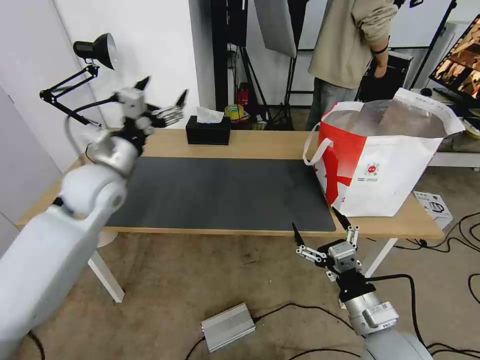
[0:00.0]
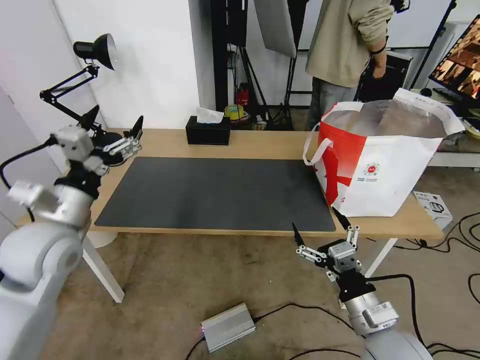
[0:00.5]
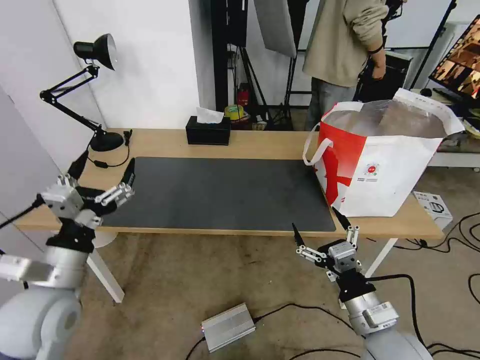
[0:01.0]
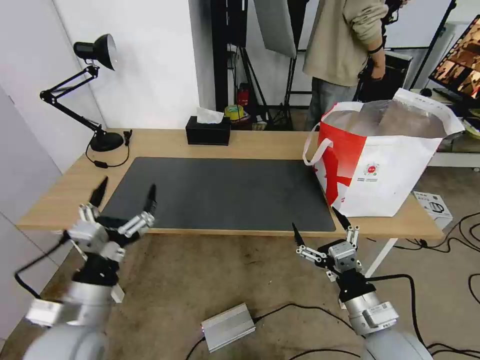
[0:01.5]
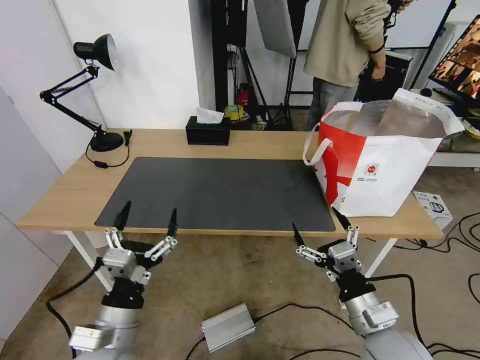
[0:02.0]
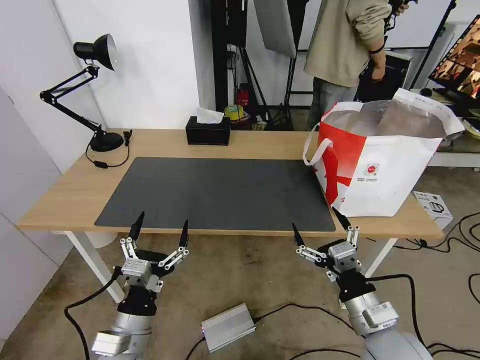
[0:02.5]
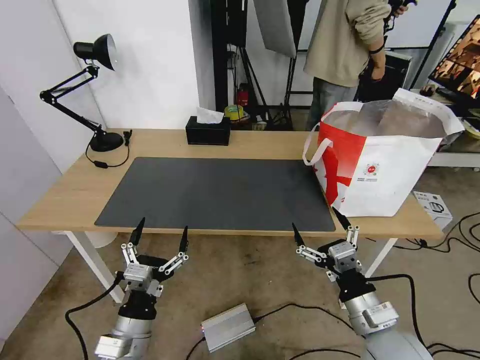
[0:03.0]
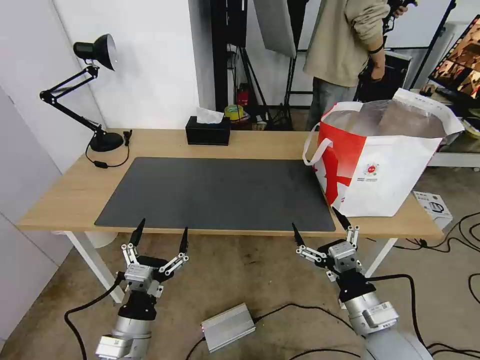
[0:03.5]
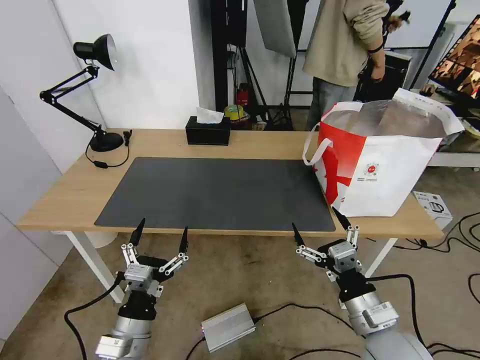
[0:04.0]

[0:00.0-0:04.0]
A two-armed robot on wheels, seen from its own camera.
Task of the whole recording: Pick up the trash from the table and place it into the takeout bag.
0:00.0 to 0:02.0: The left gripper is displaced backward and downward by about 30 cm.
0:02.0 to 0:04.0: The left gripper ends up some 5 cm from where it was.

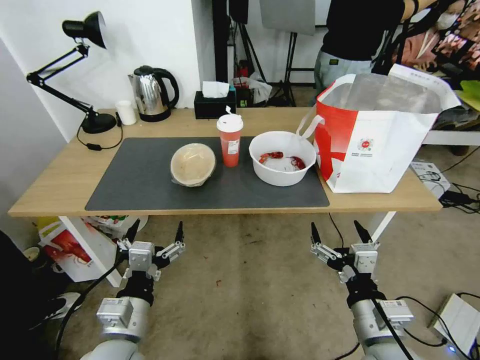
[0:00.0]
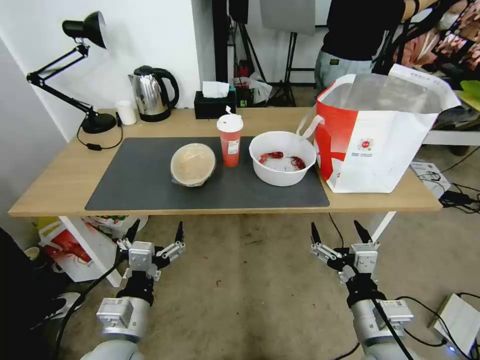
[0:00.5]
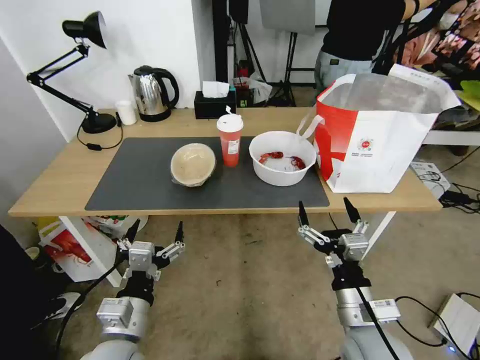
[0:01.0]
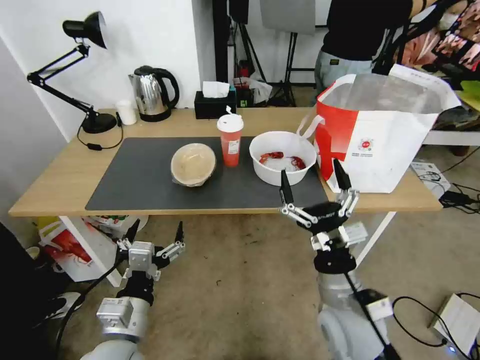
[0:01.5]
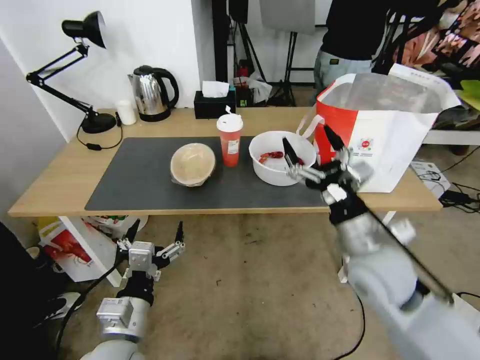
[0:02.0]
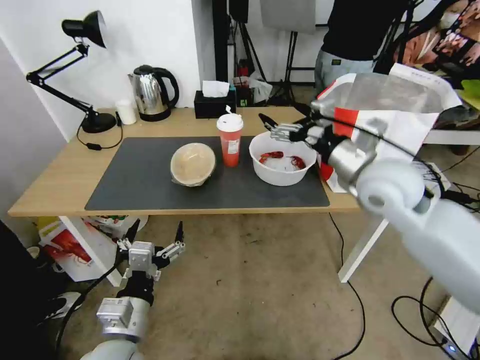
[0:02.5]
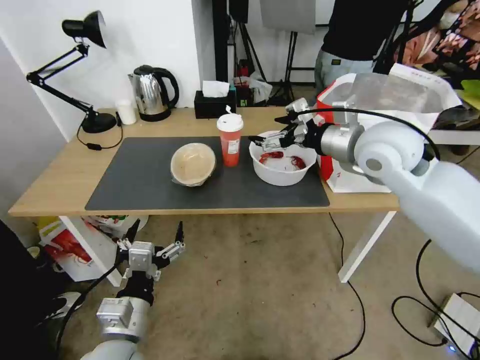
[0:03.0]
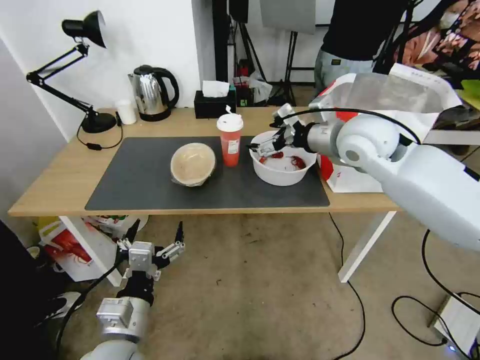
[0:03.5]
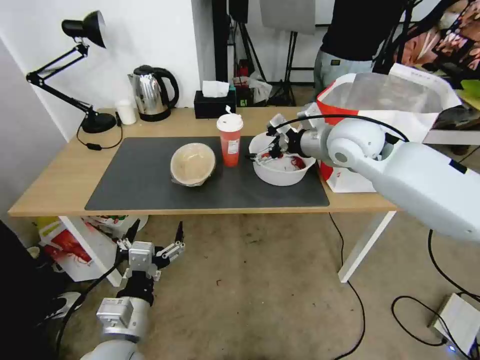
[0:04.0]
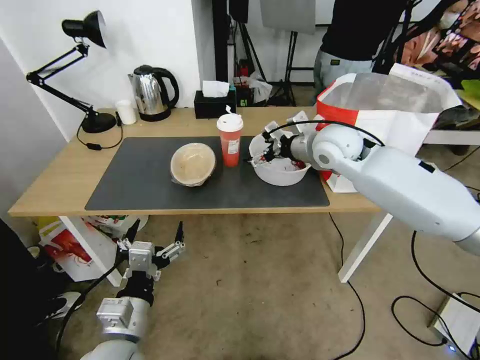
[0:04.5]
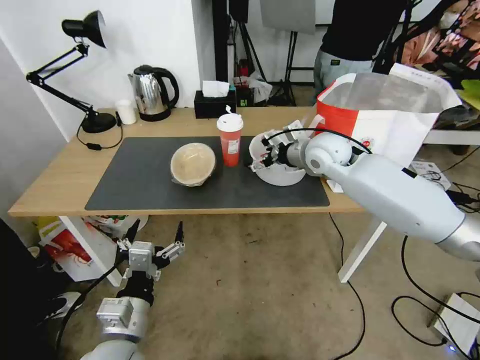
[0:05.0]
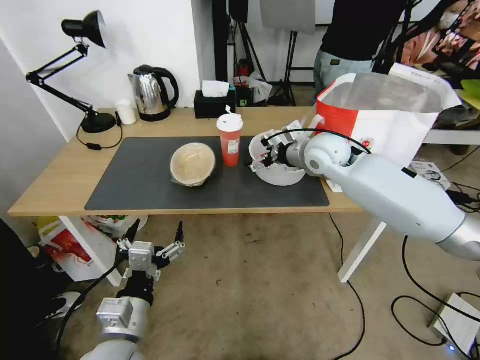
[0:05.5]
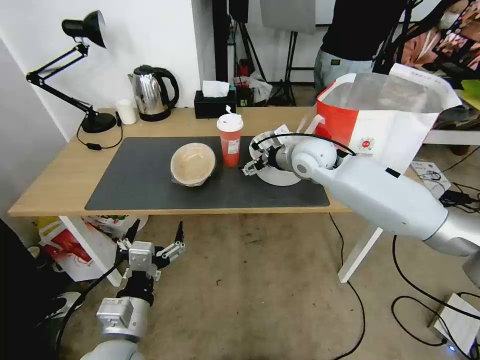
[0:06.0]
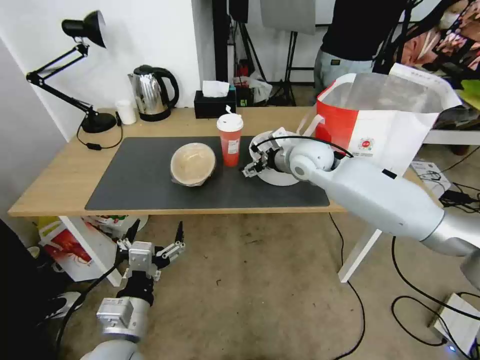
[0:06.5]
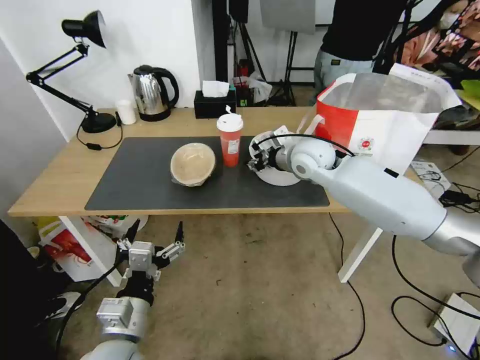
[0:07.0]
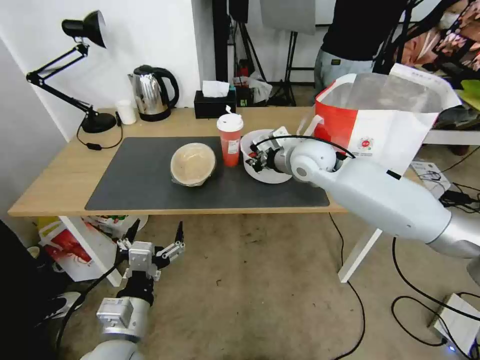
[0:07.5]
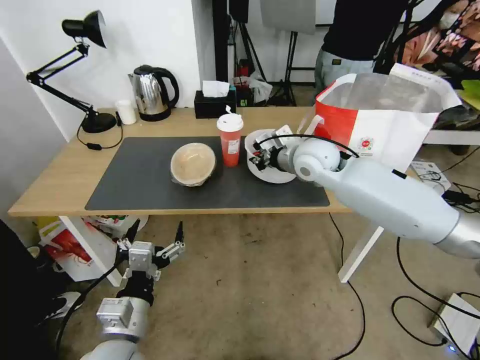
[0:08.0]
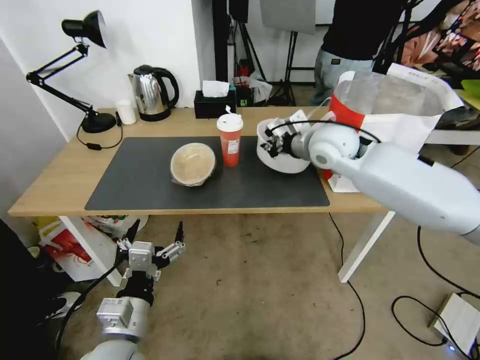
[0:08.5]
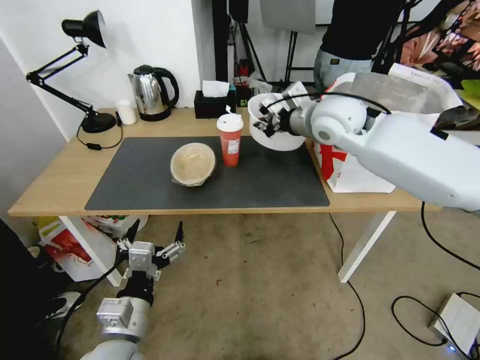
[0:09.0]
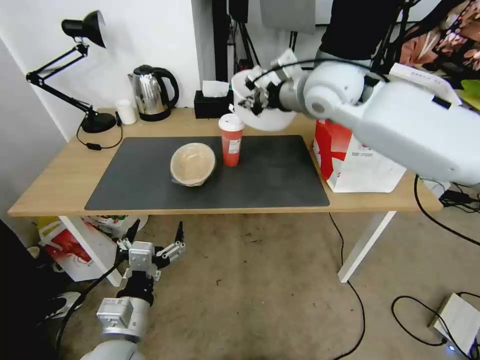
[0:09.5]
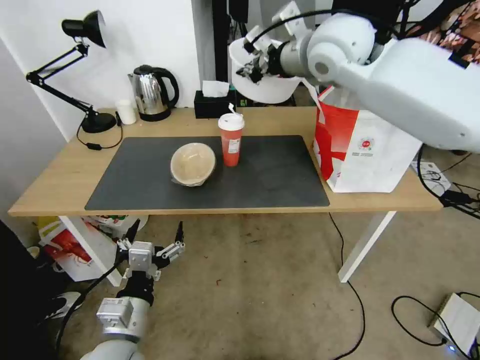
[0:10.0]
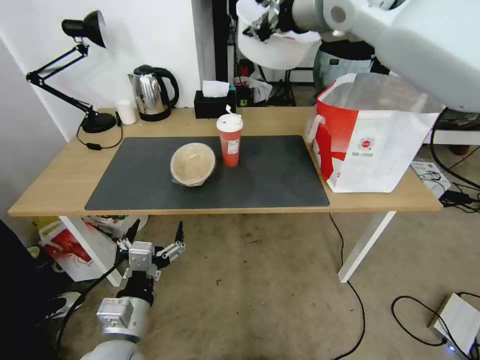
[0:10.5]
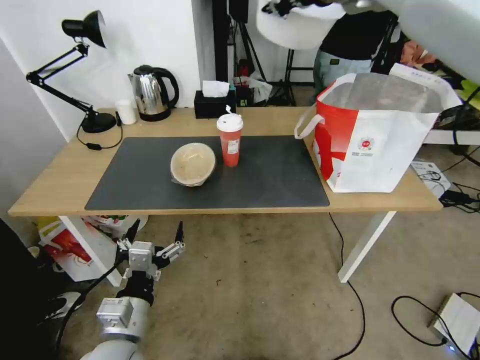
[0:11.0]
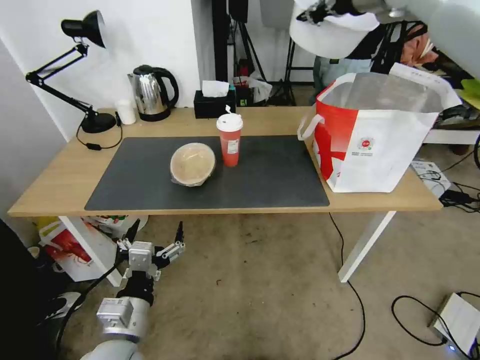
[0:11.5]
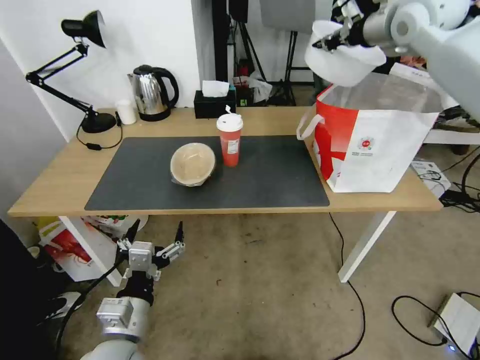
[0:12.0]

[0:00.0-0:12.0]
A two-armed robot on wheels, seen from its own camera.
Task of the whole recording: Pick up the trash from the table and place it into the takeout bag.
0:02.0 to 0:04.0: The right gripper shifts approximately 25 cm forward and upward.
0:04.0 to 0:06.0: The right gripper travels downward by approximately 10 cm.
0:06.0 to 0:08.0: The right gripper closes up.
0:08.0 to 0:10.0: The right gripper moves upward, roughly 20 cm.
0:10.0 to 0:12.0: The right gripper travels to the right by approximately 15 cm.

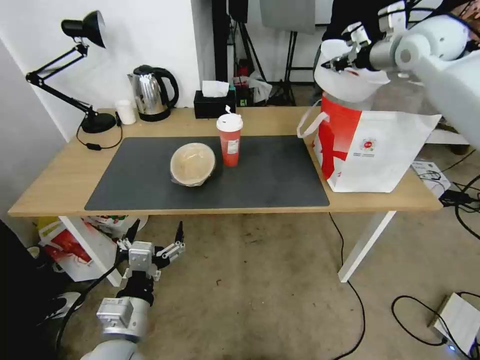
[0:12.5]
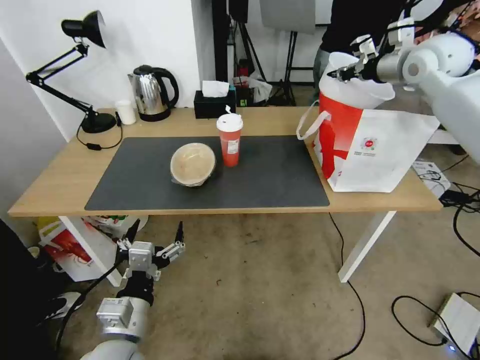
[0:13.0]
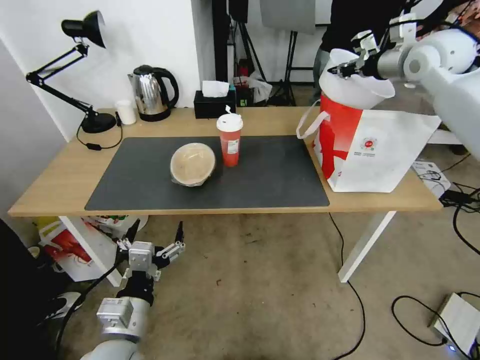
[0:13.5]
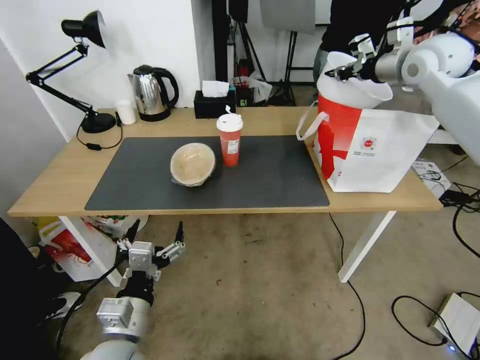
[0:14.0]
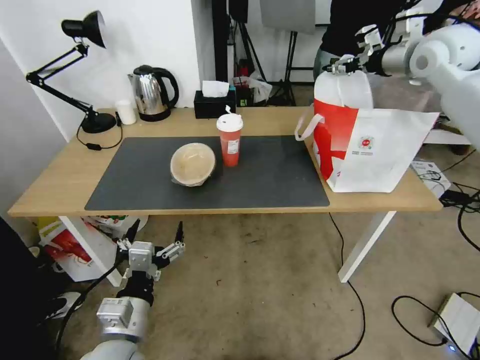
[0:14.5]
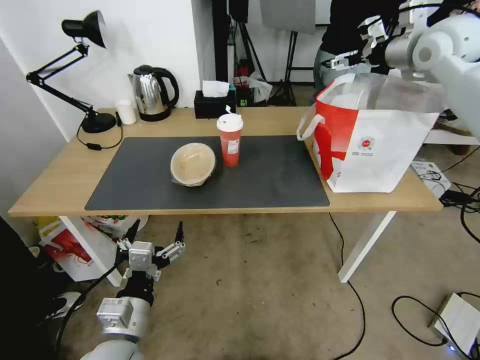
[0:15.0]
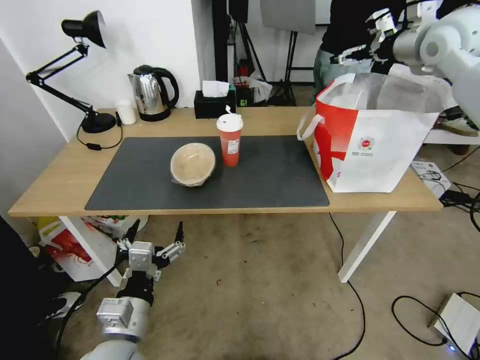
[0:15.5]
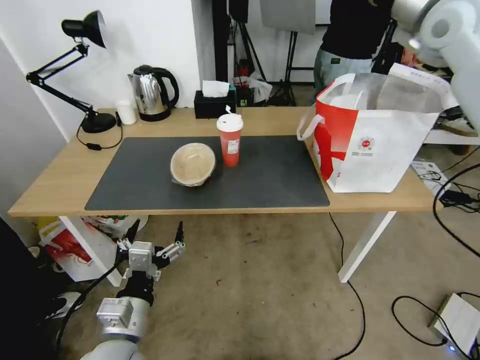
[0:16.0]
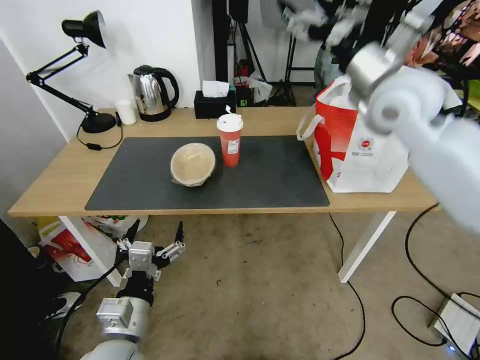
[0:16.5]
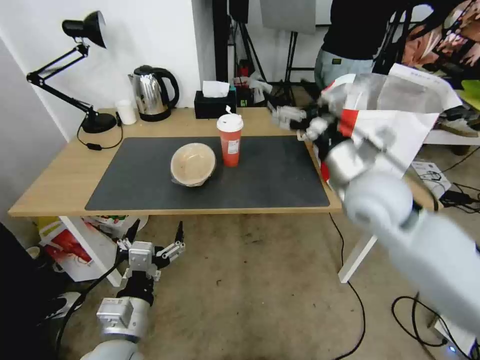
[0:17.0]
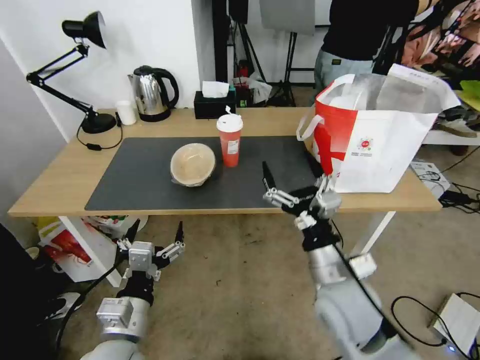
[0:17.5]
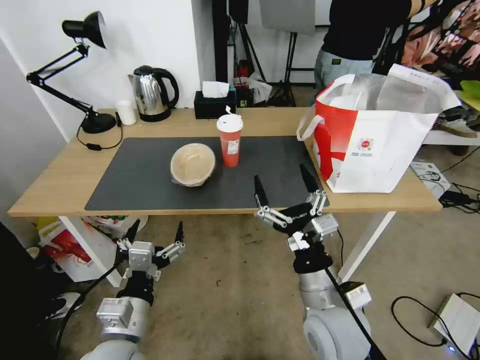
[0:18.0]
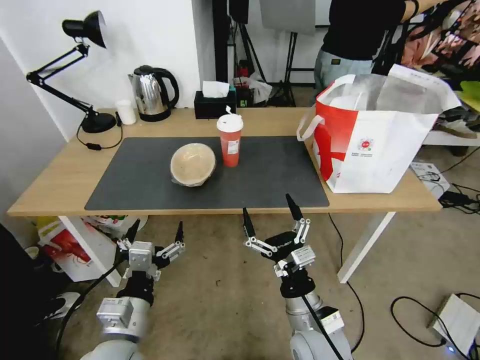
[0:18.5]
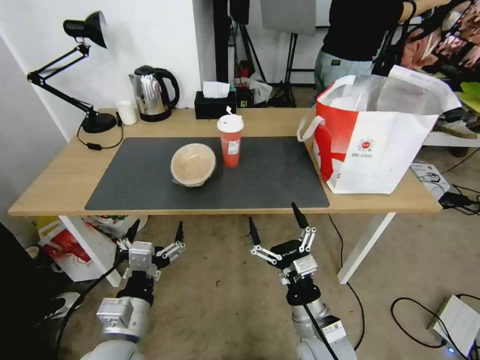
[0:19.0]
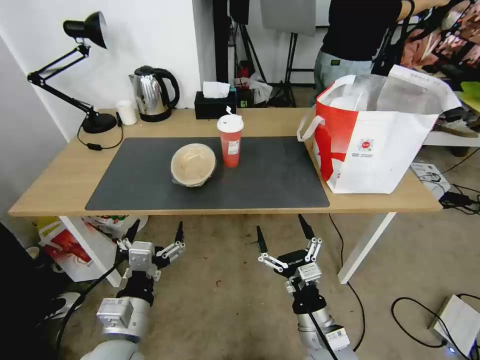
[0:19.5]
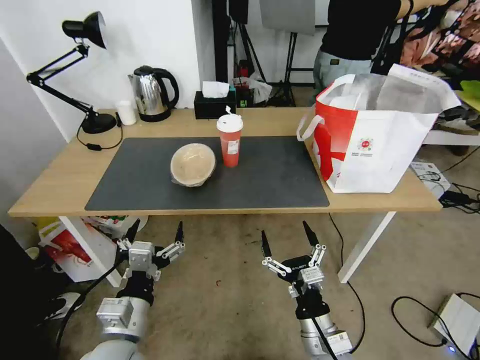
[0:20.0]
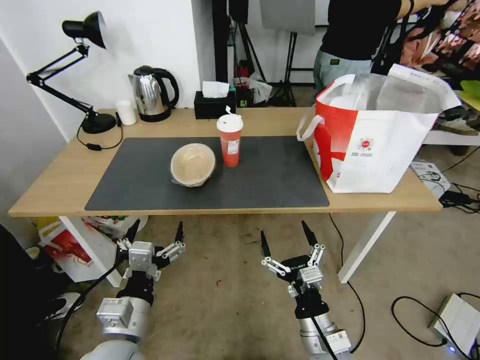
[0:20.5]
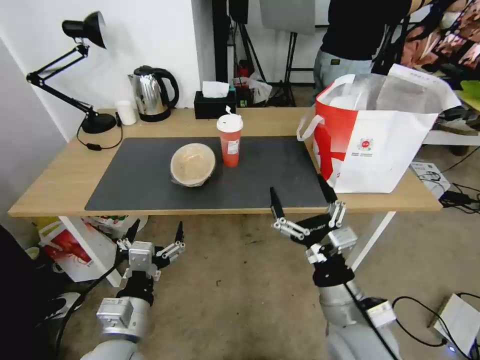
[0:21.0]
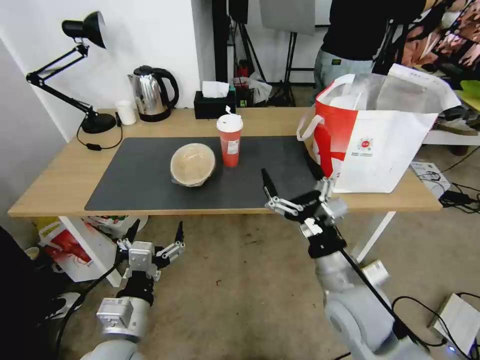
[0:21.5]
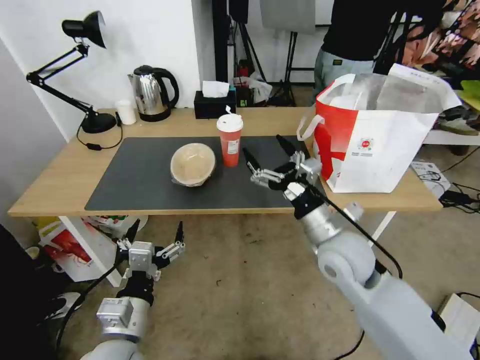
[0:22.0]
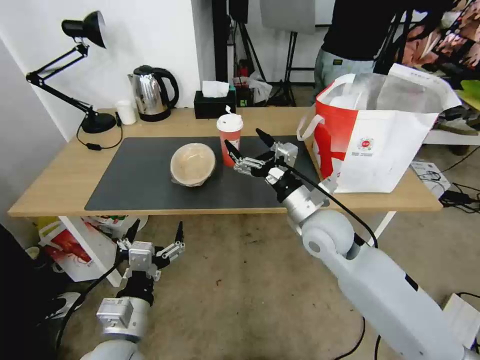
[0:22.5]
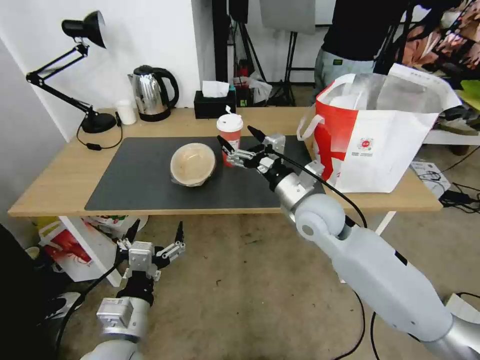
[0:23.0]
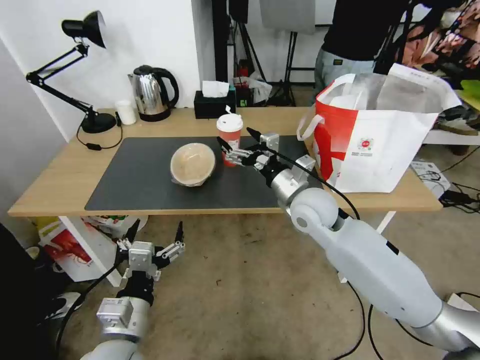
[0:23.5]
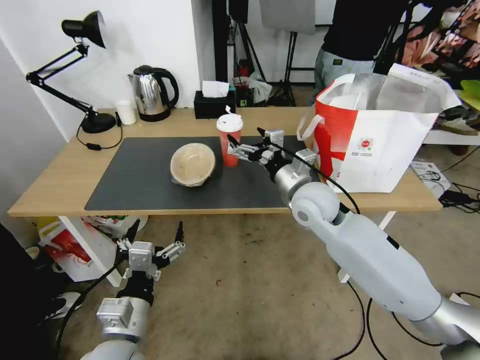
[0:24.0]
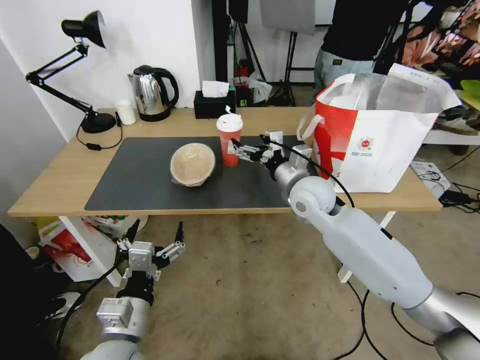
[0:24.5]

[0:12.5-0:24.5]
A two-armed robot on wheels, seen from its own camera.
Task of the whole recording: Pick up the trash from the table and place it into the takeout bag.
0:12.5 to 0:14.5: The right gripper opens up.
0:14.5 to 0:16.5: The right gripper goes about 15 cm to the left and backward, and opens its fingers.
0:16.5 to 0:18.5: The right gripper heads downward and backward, covering some 40 cm.
0:18.5 to 0:20.5: The right gripper moves roughly 5 cm.
0:20.5 to 0:22.5: The right gripper heads forward and upward, covering about 25 cm.
0:22.5 to 0:24.5: The right gripper heads forward, covering approximately 10 cm.
